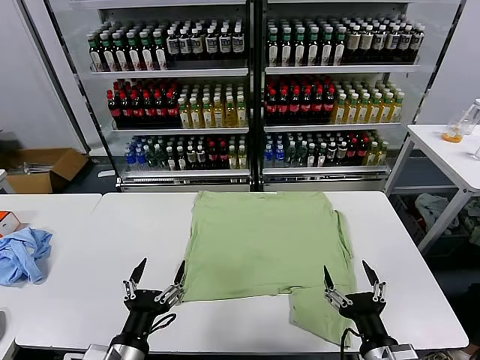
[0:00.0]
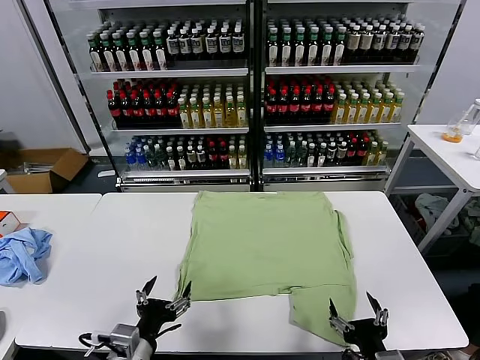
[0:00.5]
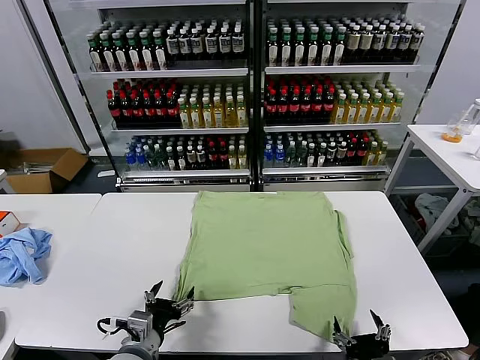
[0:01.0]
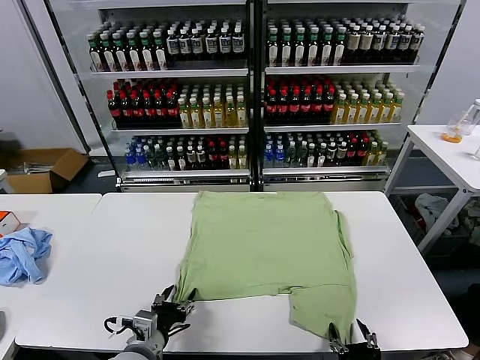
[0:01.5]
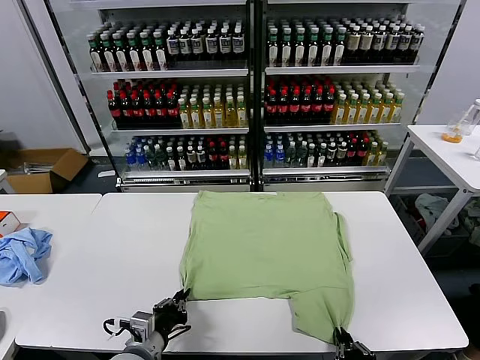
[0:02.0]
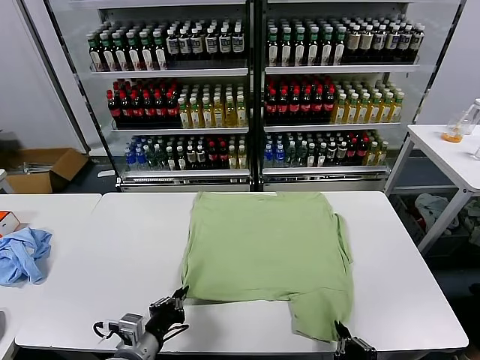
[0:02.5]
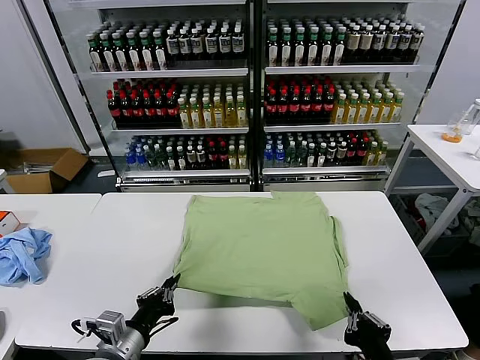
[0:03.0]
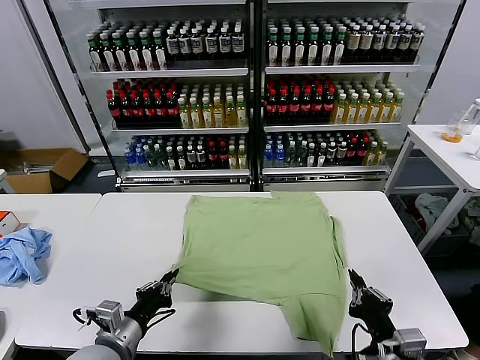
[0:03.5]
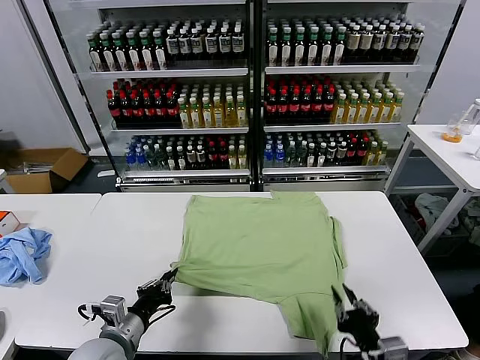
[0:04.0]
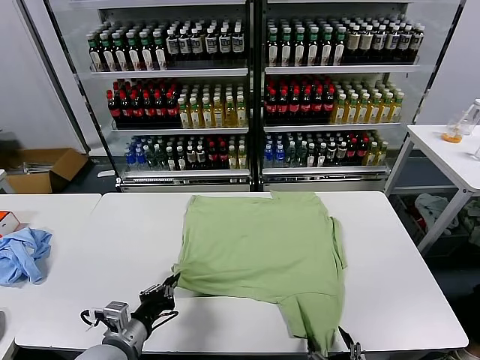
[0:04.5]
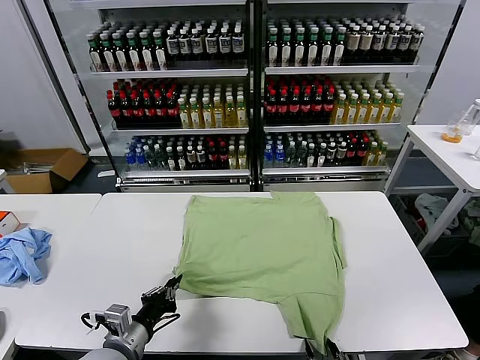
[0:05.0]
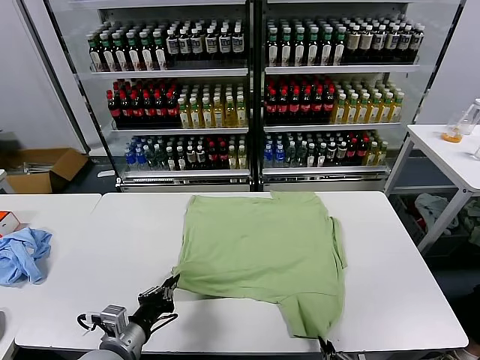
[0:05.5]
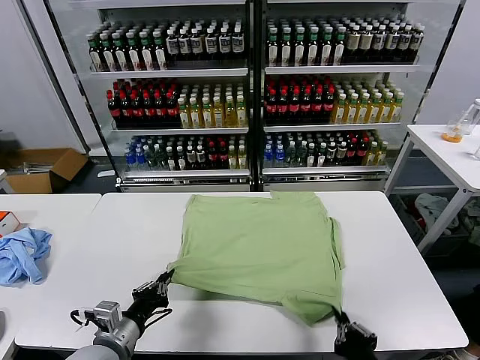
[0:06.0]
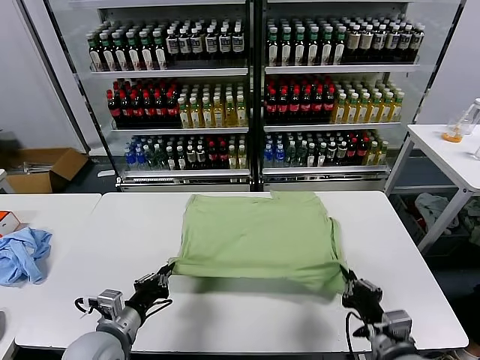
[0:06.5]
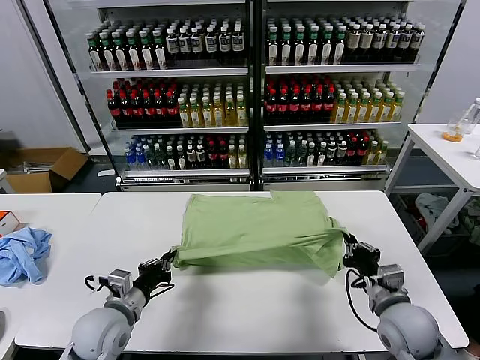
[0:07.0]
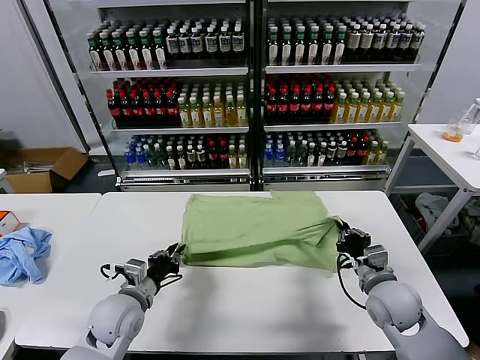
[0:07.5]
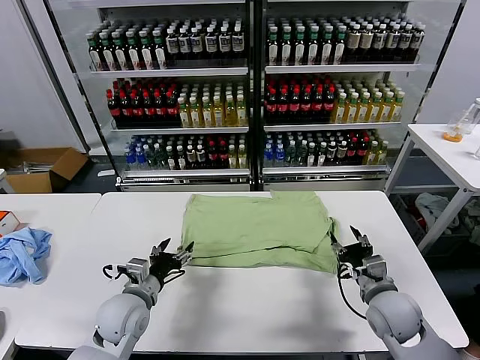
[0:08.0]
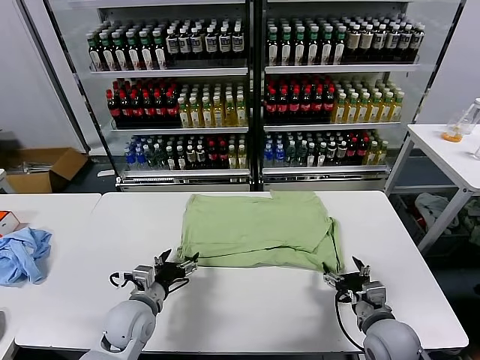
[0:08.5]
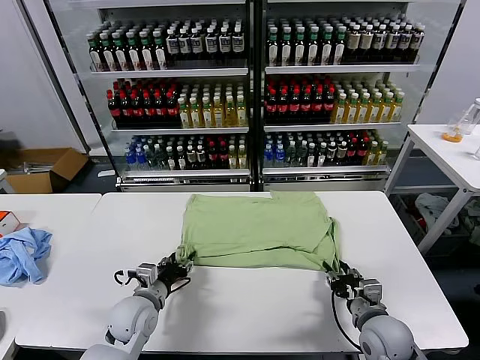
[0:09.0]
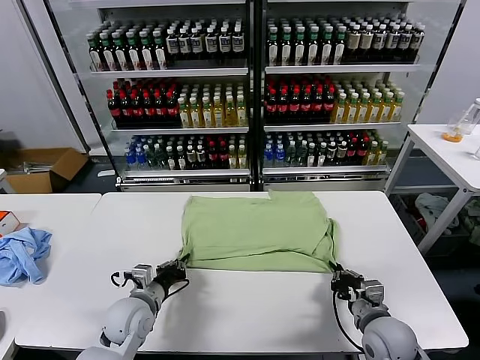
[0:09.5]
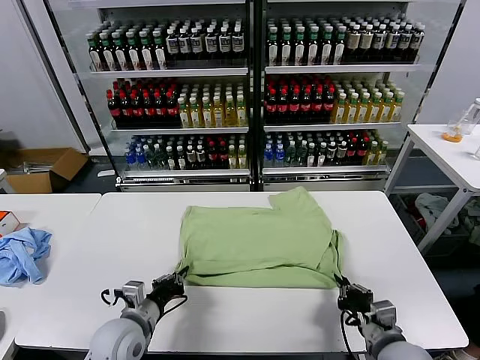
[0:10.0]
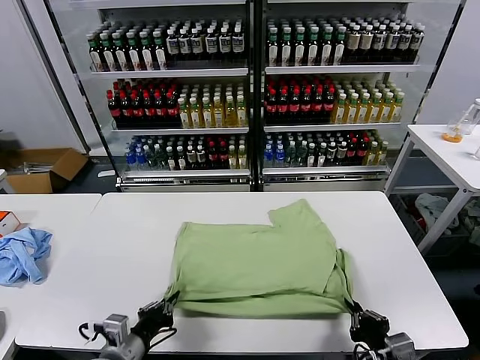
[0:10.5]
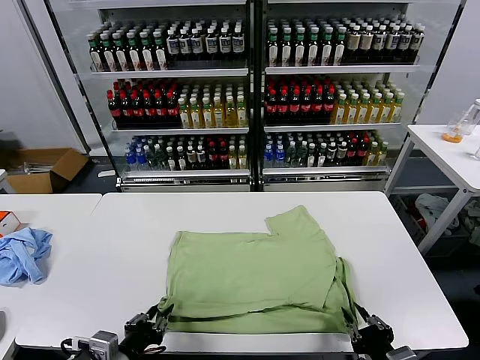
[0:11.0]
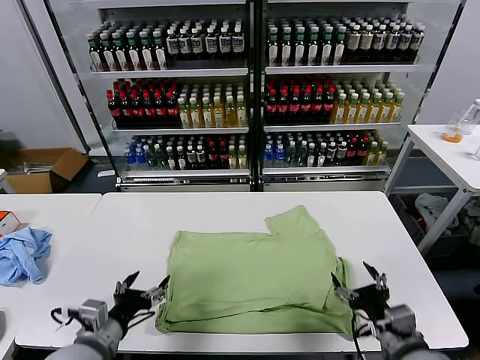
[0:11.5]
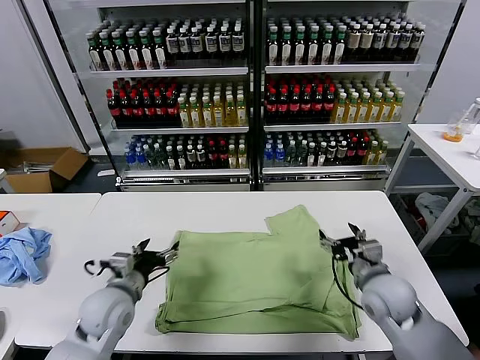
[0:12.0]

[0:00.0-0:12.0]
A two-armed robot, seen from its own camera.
Task of the whole recording: fold and organize the clothes.
Step, 0:00.0 to 0:02.0: use both grippers simultaneously to clamp the lower edge of the clothing fabric.
Step, 0:02.5 to 0:07.5: use both grippers to drag the lower edge of the fabric forward and fold it over the upper edge.
Step, 0:08.0 to 0:11.0: Drag the clothes downward with both gripper.
0:02.0 to 0:04.0: The right gripper reaches some 5 cm forward, then returns, and opens. Meanwhile the left gripper moves approximately 5 cm.
0:04.0 to 0:06.0: The right gripper closes.
0:06.0 to 0:08.0: The right gripper shifts roughly 15 cm forward, and opens its fingers. The left gripper moves forward, some 10 cm, and opens.
0:08.0 to 0:10.0: The left gripper closes; the right gripper shifts roughly 10 cm backward, and closes its fingers.
0:10.0 to 0:12.0: The right gripper goes roughly 15 cm forward, and opens its fingers. Meanwhile the left gripper goes backward and returns, roughly 10 cm each way, and opens its fingers.

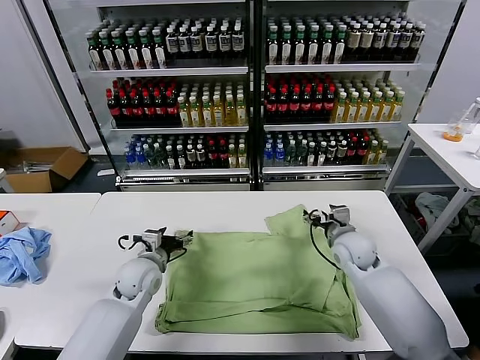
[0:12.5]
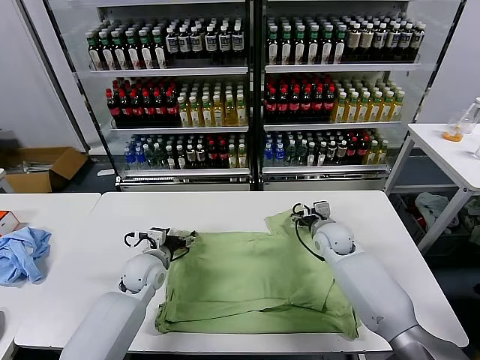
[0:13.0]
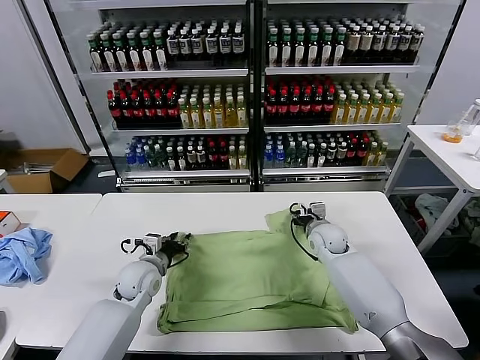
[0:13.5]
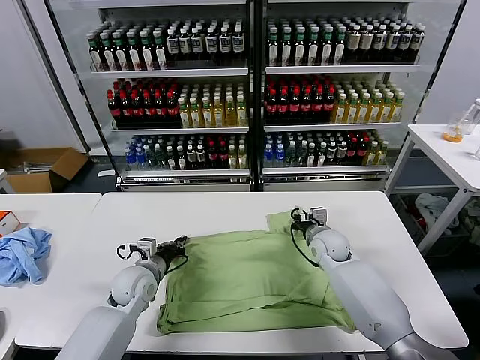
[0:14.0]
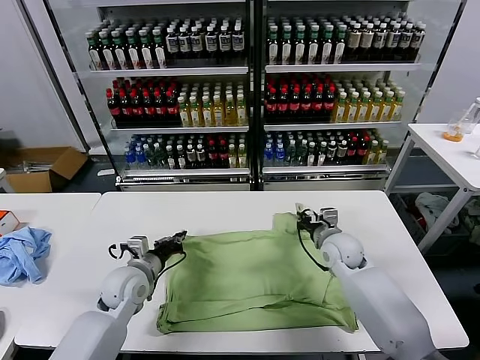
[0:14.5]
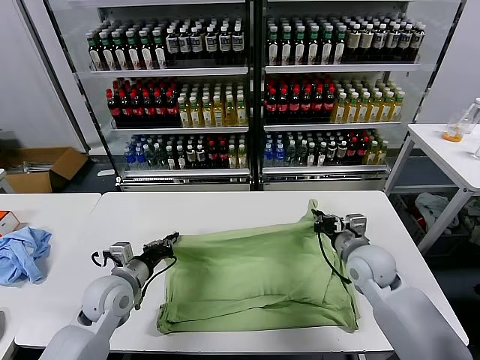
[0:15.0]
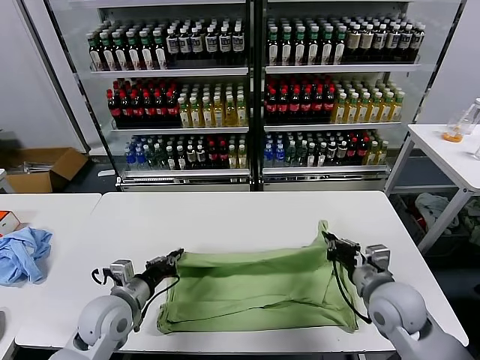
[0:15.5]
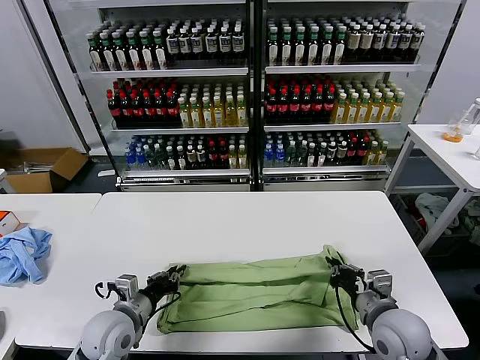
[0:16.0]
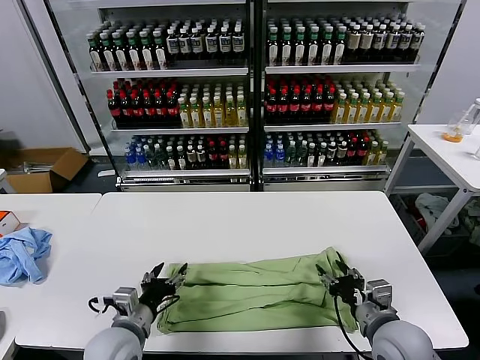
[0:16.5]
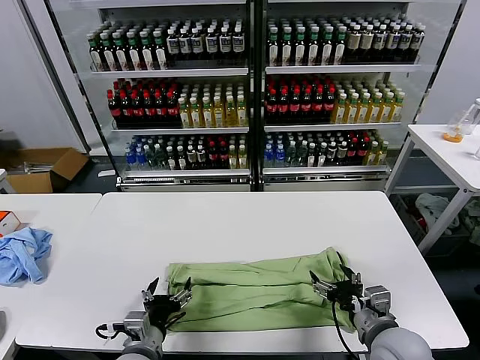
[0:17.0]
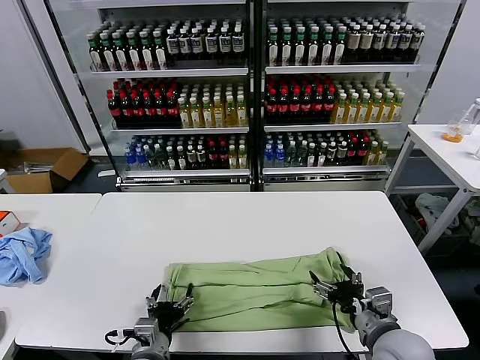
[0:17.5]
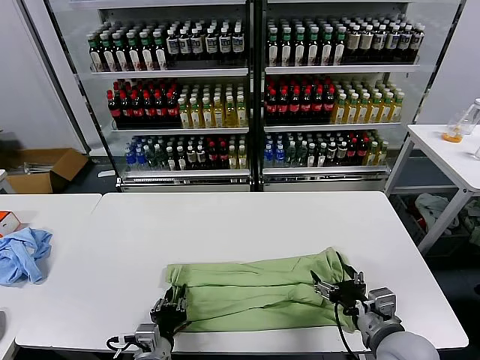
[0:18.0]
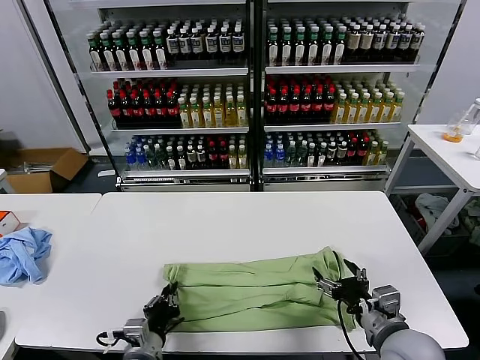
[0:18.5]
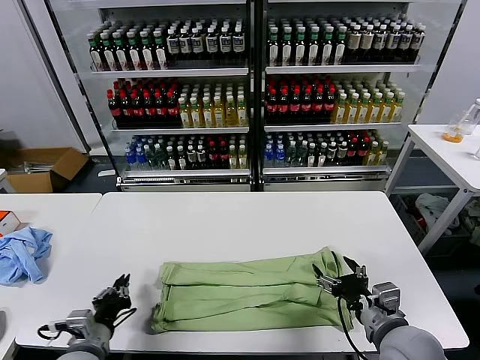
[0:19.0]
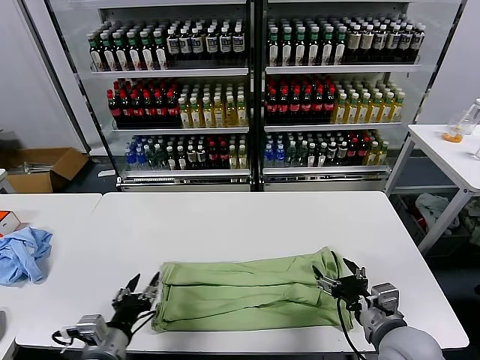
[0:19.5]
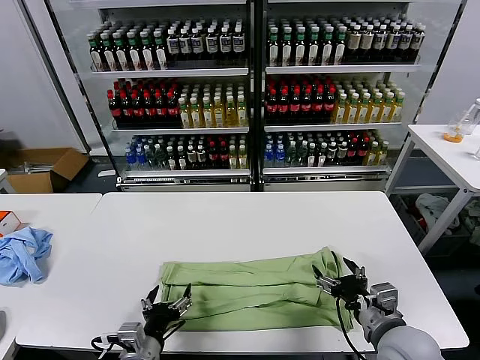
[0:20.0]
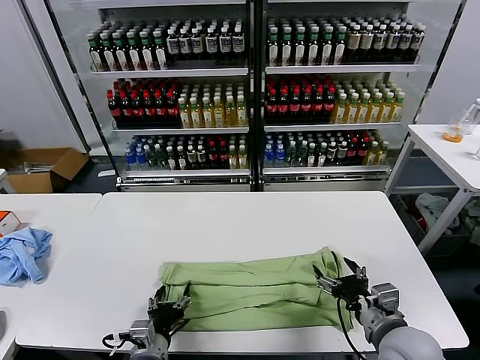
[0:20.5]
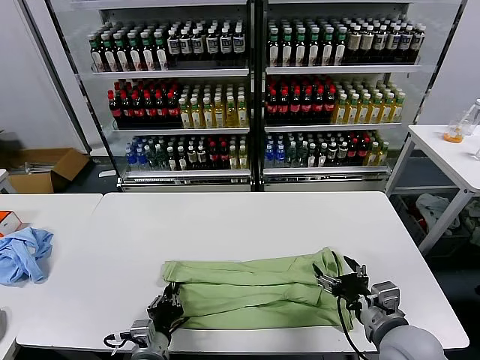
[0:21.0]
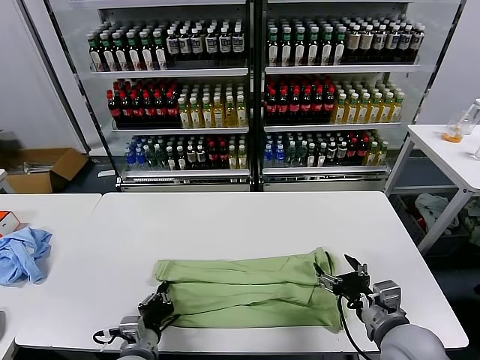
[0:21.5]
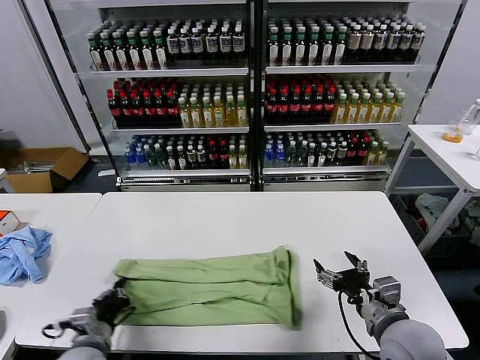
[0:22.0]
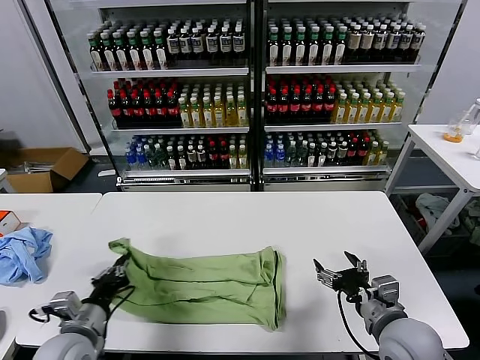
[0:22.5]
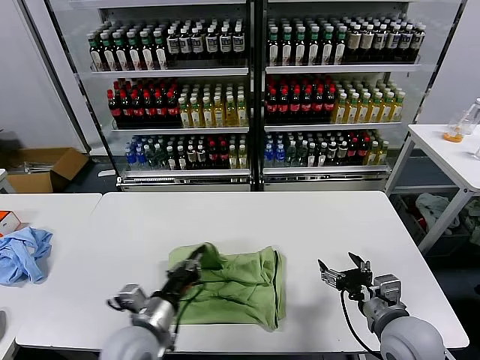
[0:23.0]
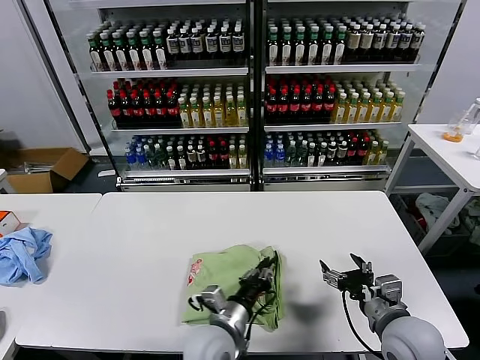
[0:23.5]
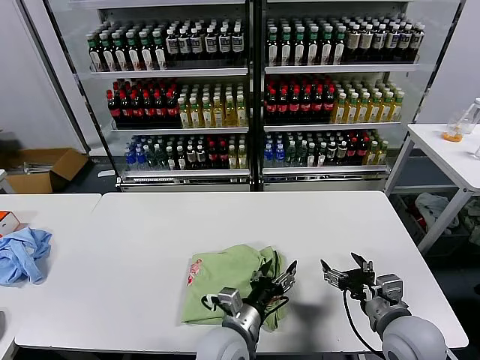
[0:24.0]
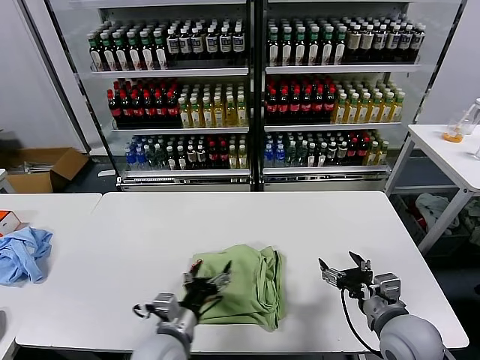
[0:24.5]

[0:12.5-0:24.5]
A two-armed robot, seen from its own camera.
Task of the whole recording: fold and organize the clothes.
Step, 0:14.0 to 0:16.5: use both grippers to drag the upper edge of the fabric backward and fold it over the lower edge.
Step, 0:17.0 to 0:18.0: use the left gripper to clamp the left edge of the fabric.
Step, 0:18.5 to 0:24.0: use the left gripper to drag the left edge of the fabric to the left and folds it over the right edge.
0:12.5 to 0:14.5: The left gripper closes up; the right gripper closes up.
0:14.5 to 0:16.5: The left gripper shifts roughly 15 cm backward, and opens up. The right gripper heads backward, covering roughly 20 cm, and opens its fingers.
0:16.5 to 0:18.5: The left gripper moves some 10 cm, and closes.
0:18.5 to 0:20.5: The left gripper goes to the left and returns, approximately 10 cm each way, and opens up.
0:20.5 to 0:22.5: The left gripper shifts roughly 15 cm to the left and upward, and closes its fingers.
0:22.5 to 0:24.5: The left gripper travels to the right by approximately 20 cm, and opens.

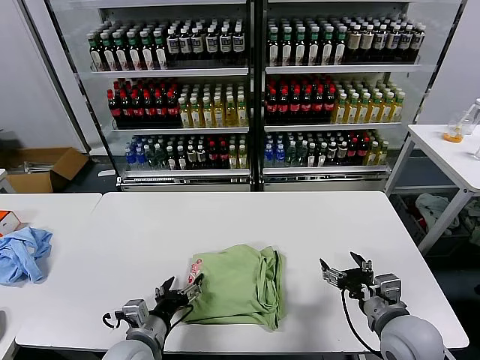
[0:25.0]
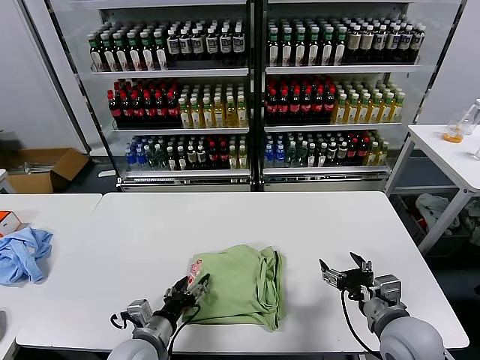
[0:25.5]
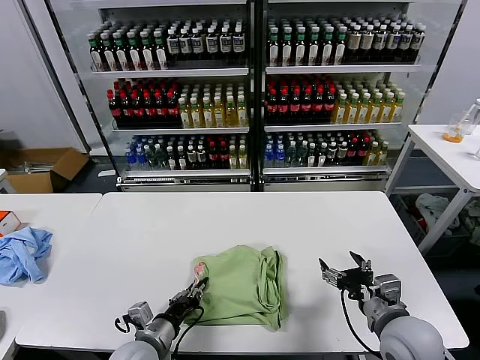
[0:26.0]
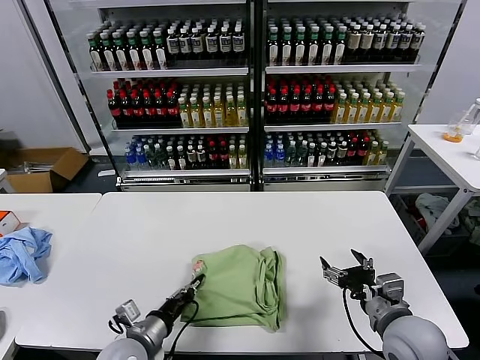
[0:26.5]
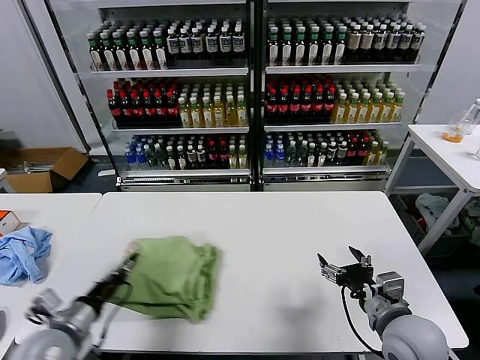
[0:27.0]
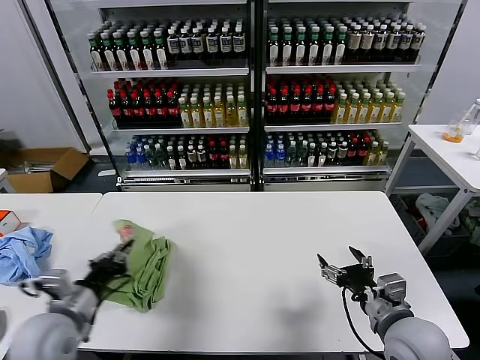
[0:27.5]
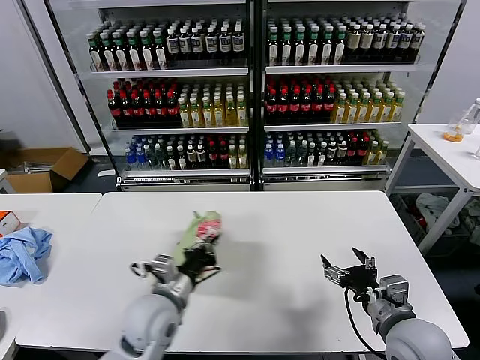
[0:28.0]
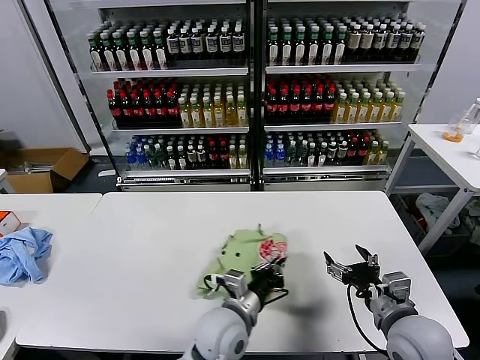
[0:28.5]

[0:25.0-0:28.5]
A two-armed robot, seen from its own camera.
Task of the whole recording: fold and organize the clothes.
0:25.0 to 0:27.0: The left gripper travels to the left by approximately 10 cm, and closes up.
0:27.0 to 0:28.5: The left gripper is displaced to the right by roughly 30 cm.
